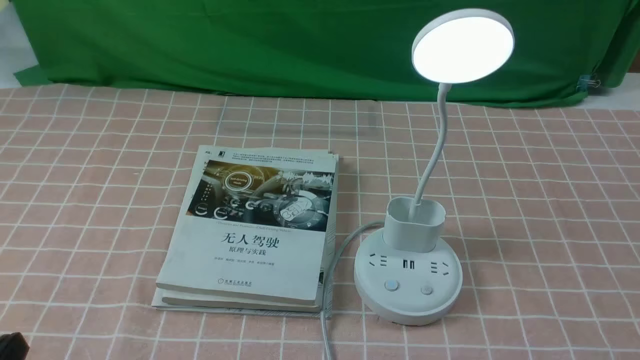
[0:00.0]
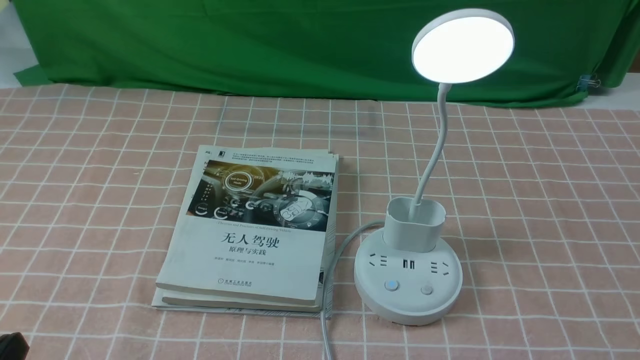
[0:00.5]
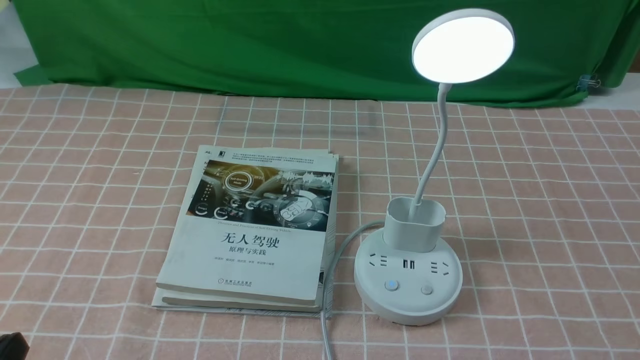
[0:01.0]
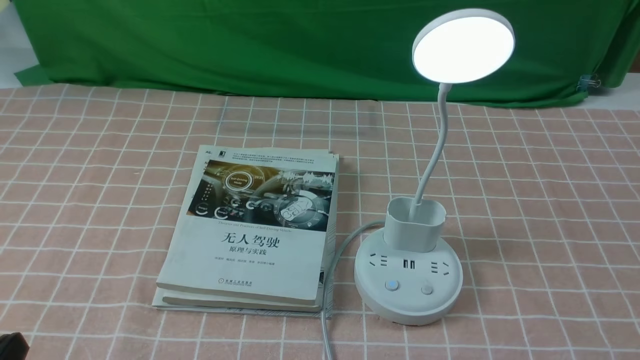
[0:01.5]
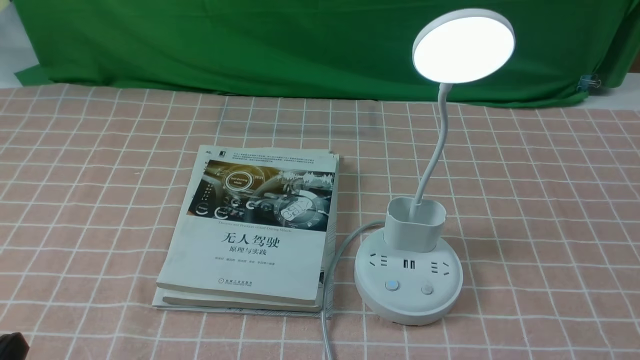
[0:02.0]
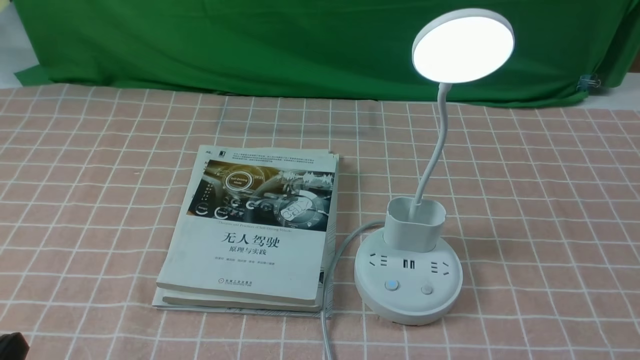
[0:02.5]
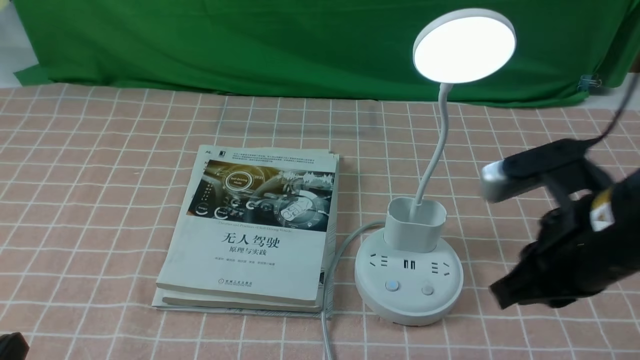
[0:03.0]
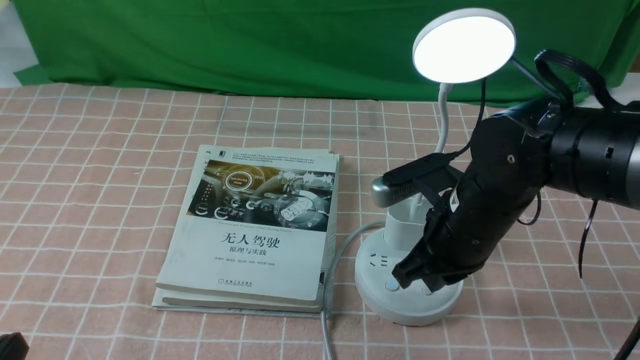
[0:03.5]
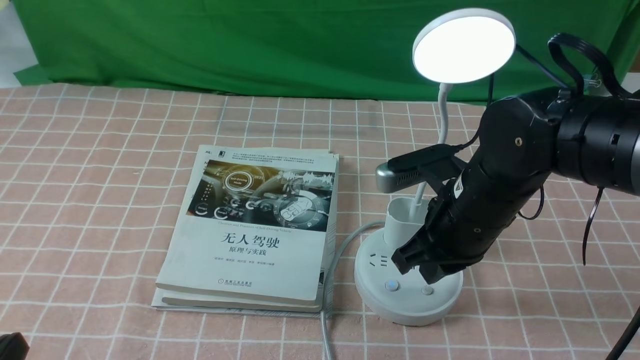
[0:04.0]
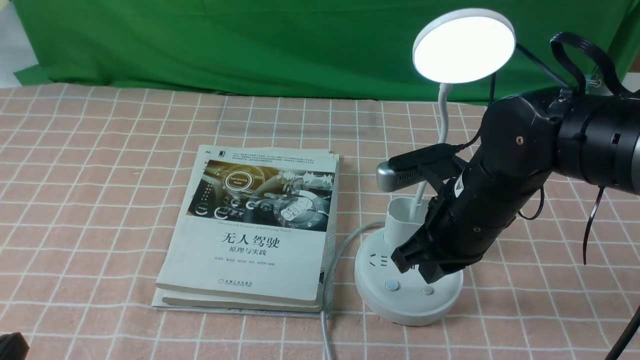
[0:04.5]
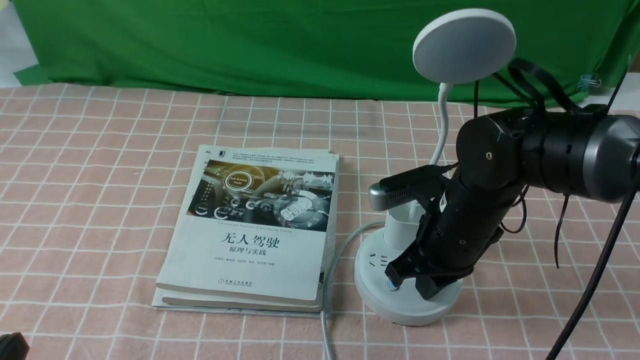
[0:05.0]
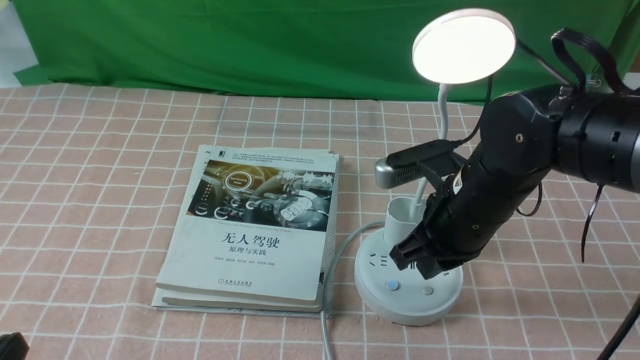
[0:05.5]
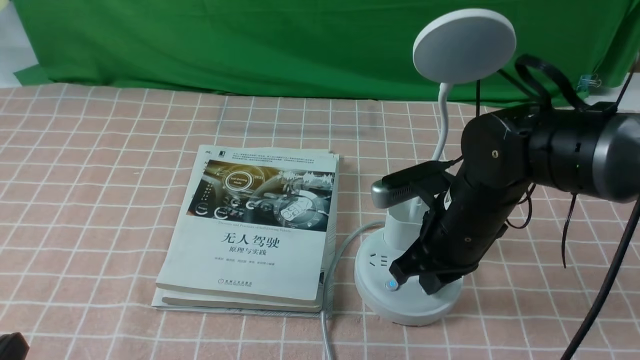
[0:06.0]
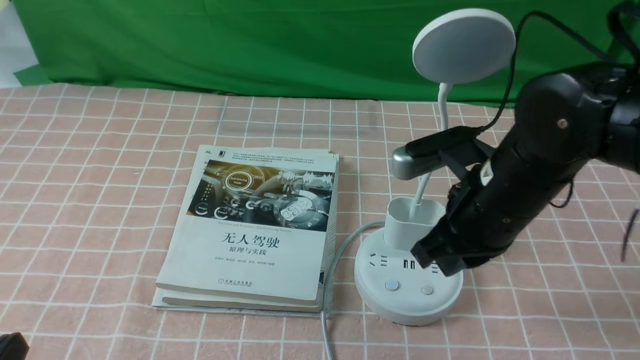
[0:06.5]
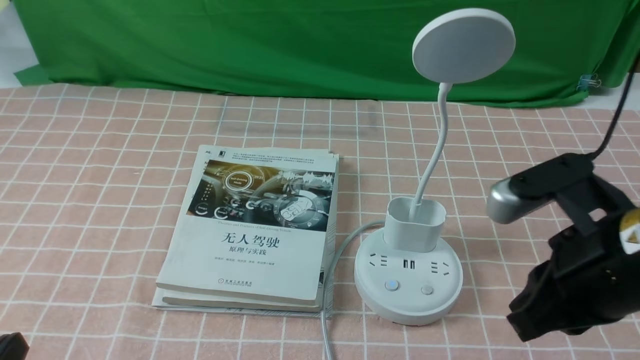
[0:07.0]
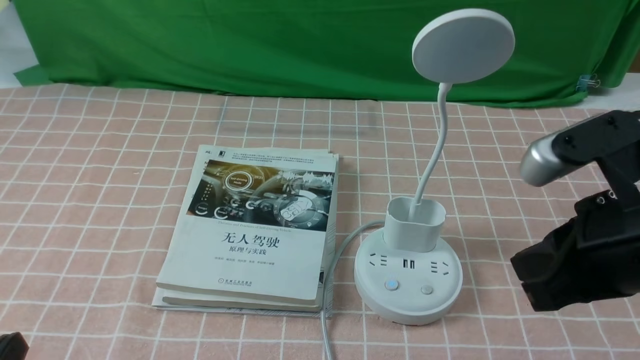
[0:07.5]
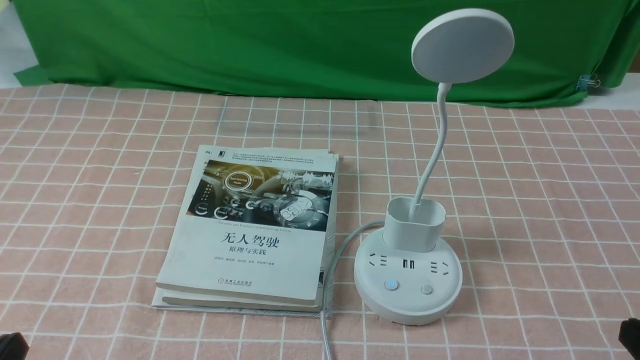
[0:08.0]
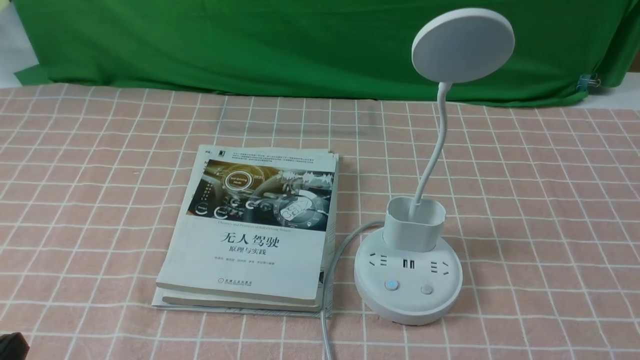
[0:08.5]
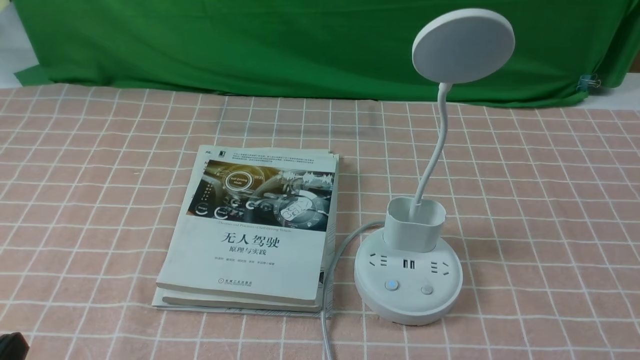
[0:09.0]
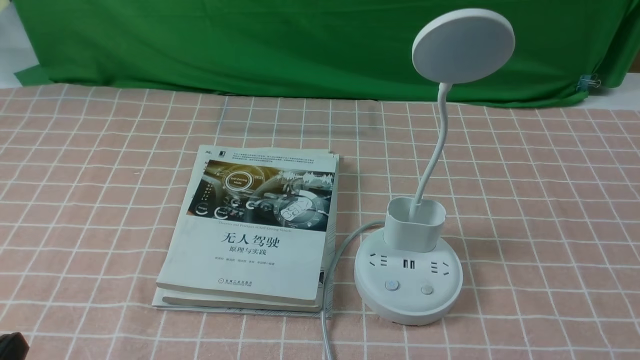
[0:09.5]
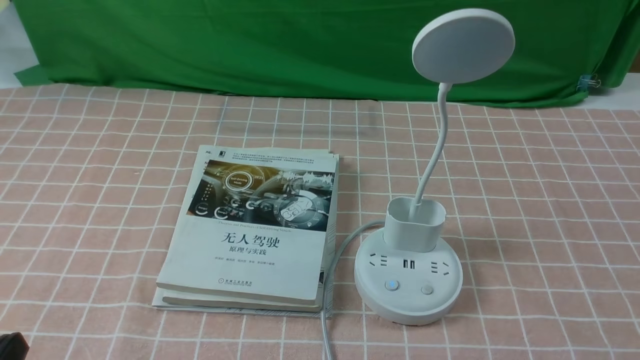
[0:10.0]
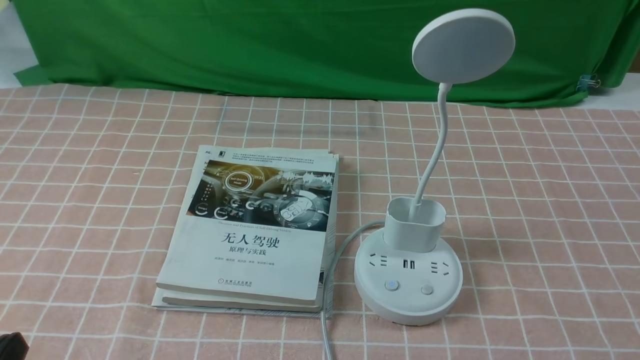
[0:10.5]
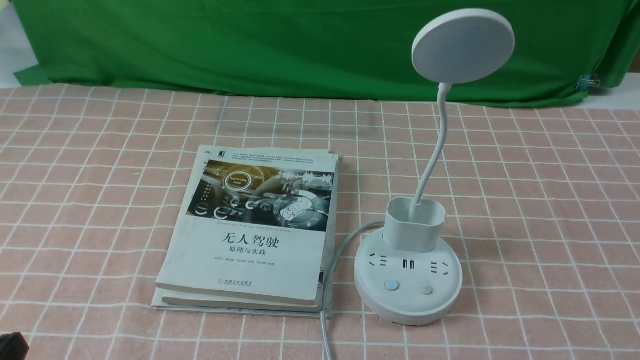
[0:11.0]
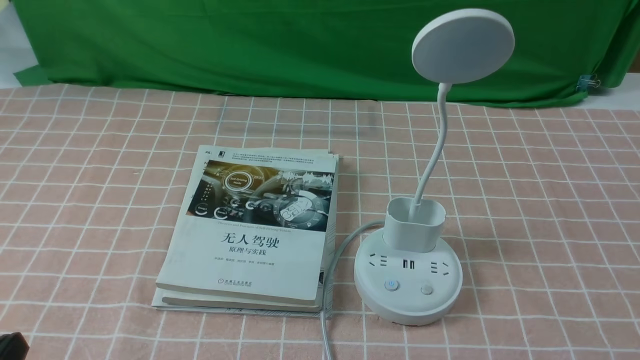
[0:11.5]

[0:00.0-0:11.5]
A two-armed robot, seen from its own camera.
Task of the whole recording: turn off the table lamp on the pink coffee tablecloth by hand.
Step, 0:00.0 to 0:06.0: use the right arm to press the button switch on the lamp holder.
0:02.0 to 0:04.0: The right gripper goes roughly 30 cm forward and to the left, and closes up.
0:04.0 to 0:06.0: The grippers stay close to where they were, moving slightly.
0:06.0 to 0:07.5: The right gripper travels backward, upward and to the right by about 20 cm.
0:07.5 to 0:09.5: The right gripper heads downward, backward and to the right, covering about 20 cm.
